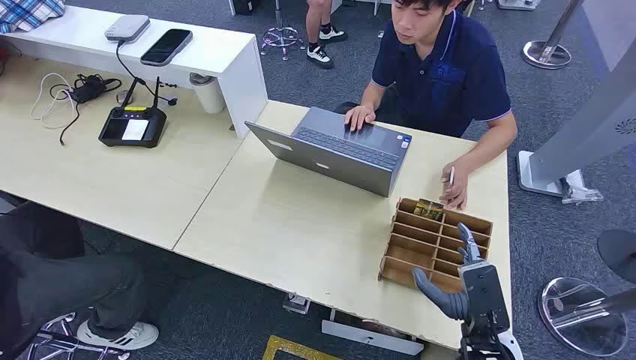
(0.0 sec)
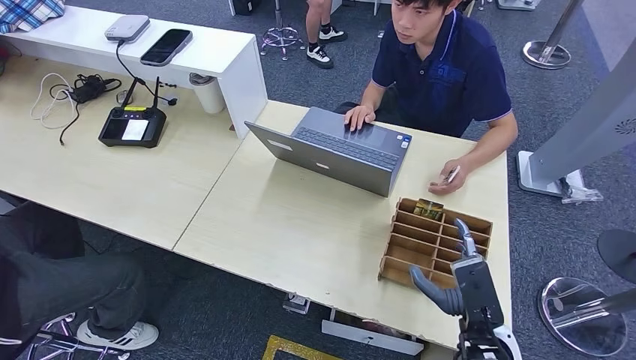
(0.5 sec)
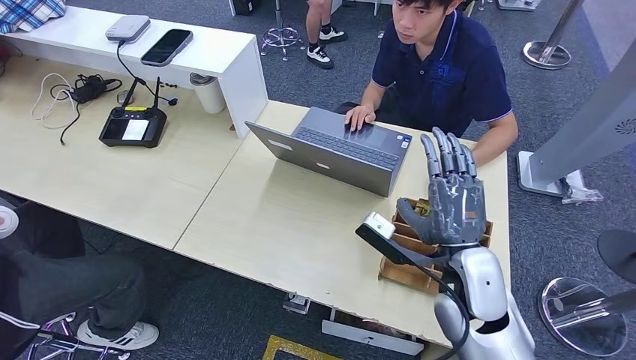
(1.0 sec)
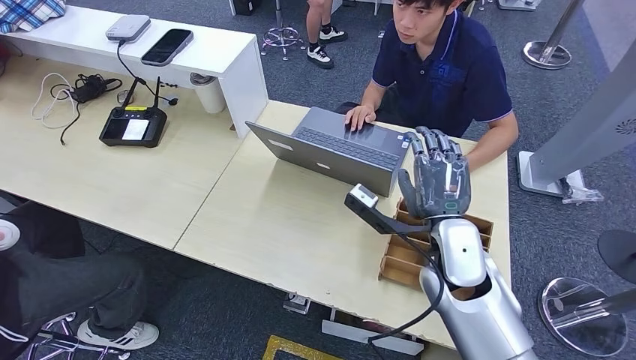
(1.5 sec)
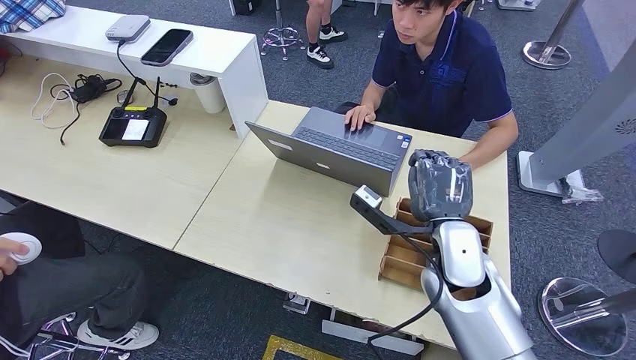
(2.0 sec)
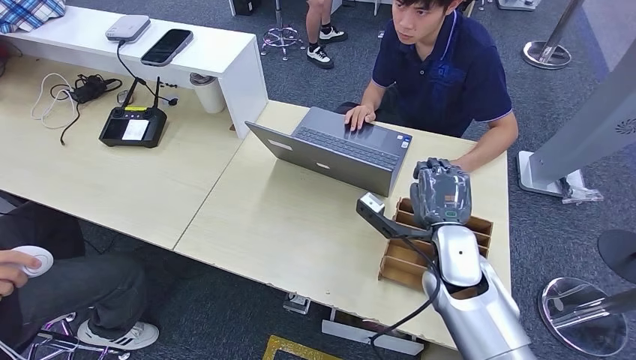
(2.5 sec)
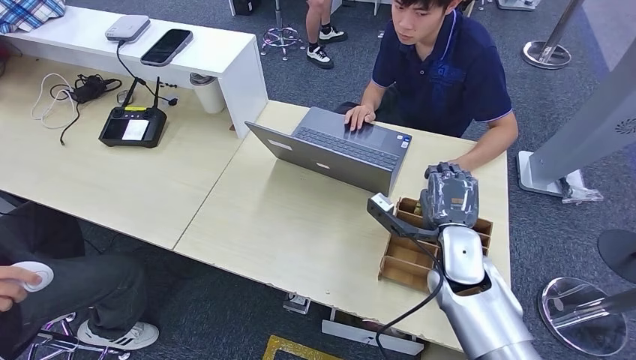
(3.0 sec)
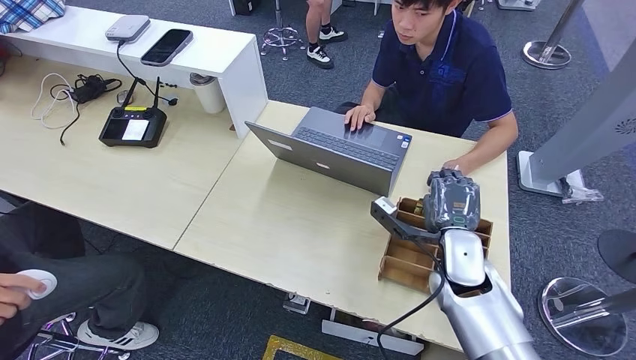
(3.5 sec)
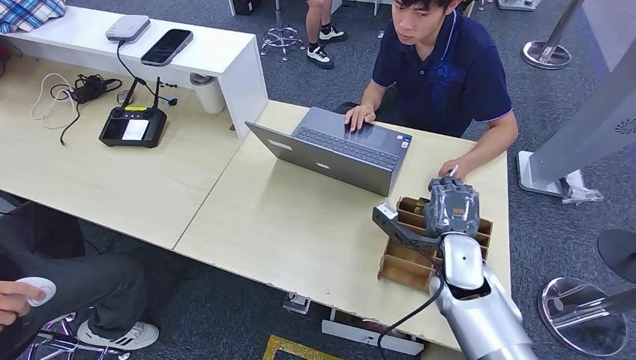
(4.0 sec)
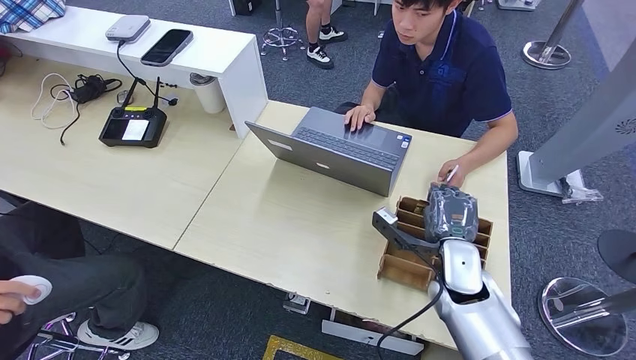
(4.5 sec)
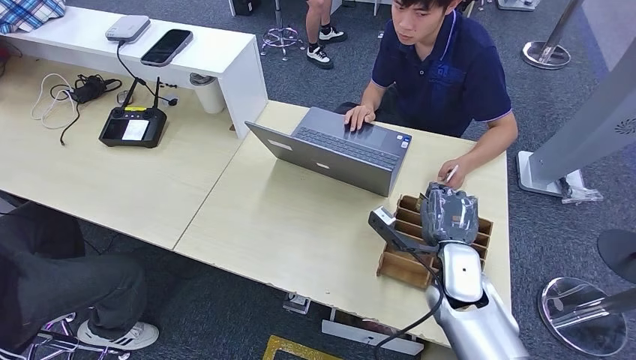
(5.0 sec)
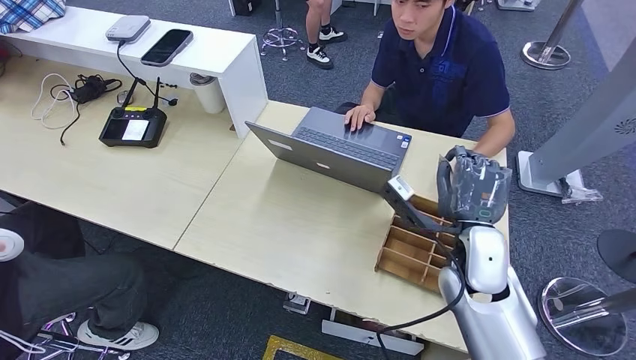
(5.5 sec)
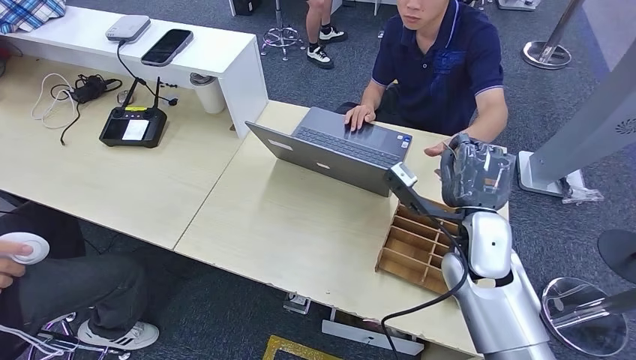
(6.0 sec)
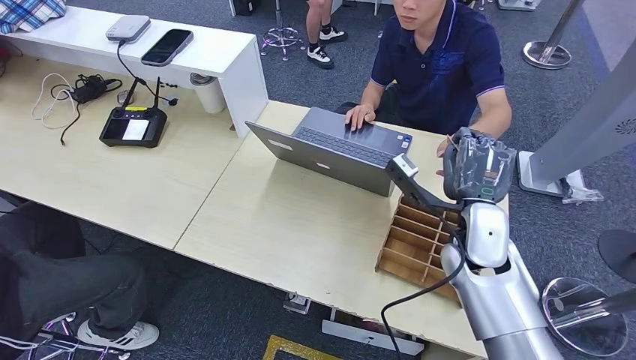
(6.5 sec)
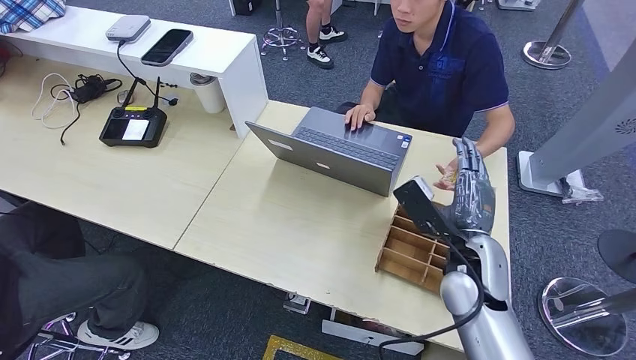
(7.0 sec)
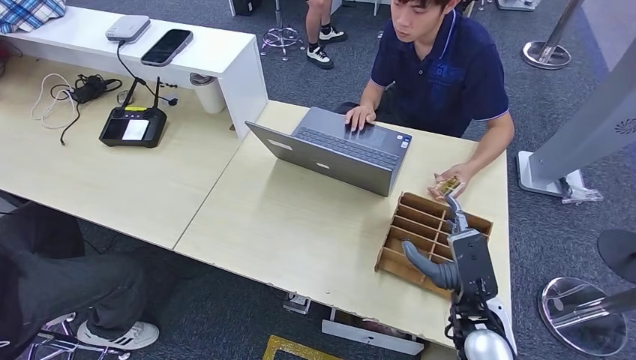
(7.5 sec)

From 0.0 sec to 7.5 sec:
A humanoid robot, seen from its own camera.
Step, from 0.0 sec to 5.0 sec: Pick up the room card from the card holder.
Step, from 5.5 sec to 7.5 sec: Hand the room card to the target.
From 2.0 sec to 4.0 sec: The right hand travels downward by some 5 cm.
From 4.0 sec to 5.5 sec: The right hand is displaced upward by approximately 5 cm.
From 5.5 sec to 7.5 sec: The right hand moves downward and backward, roughly 10 cm.
